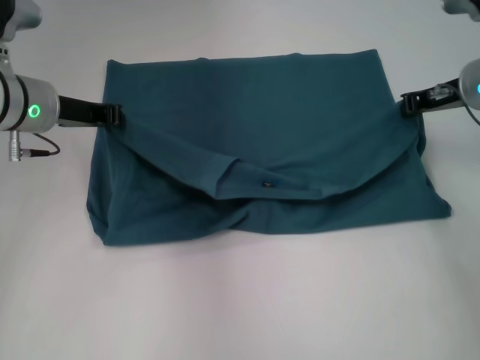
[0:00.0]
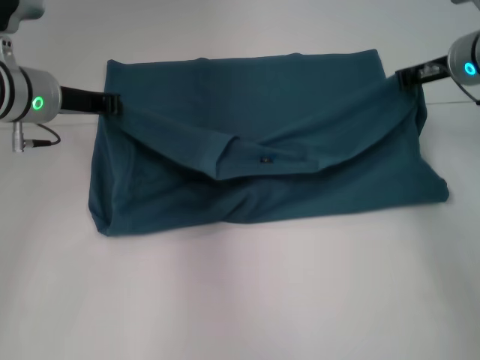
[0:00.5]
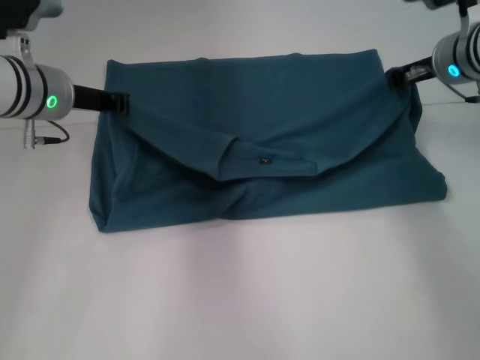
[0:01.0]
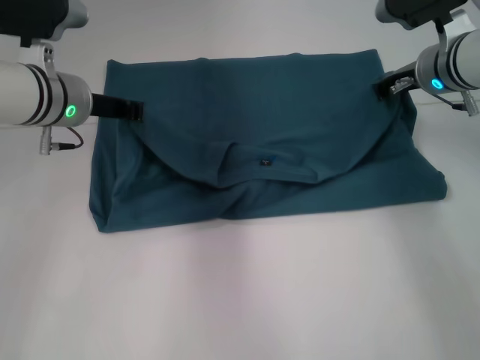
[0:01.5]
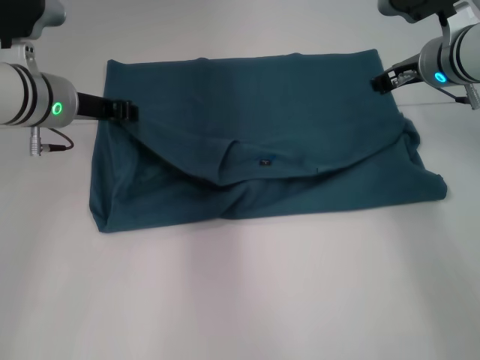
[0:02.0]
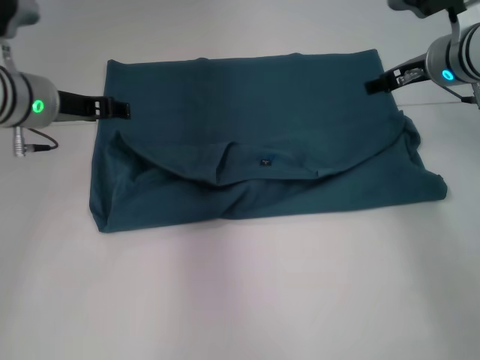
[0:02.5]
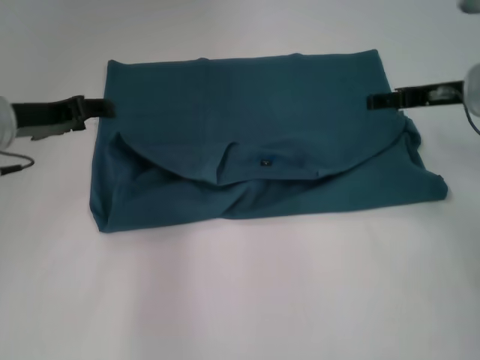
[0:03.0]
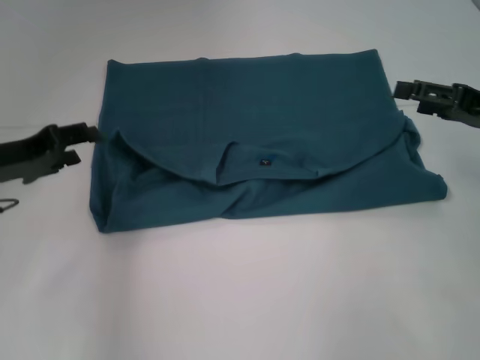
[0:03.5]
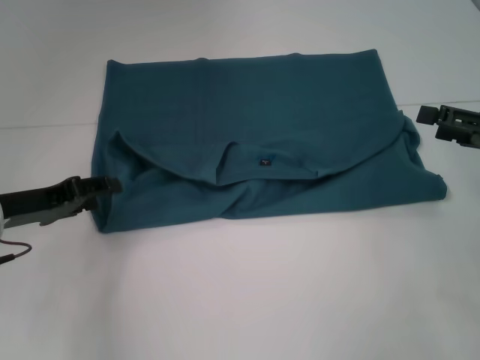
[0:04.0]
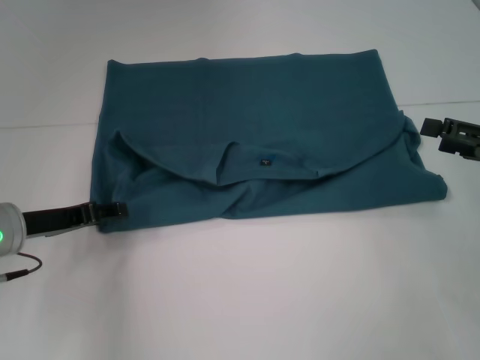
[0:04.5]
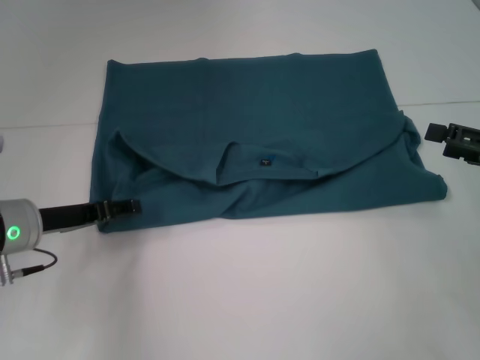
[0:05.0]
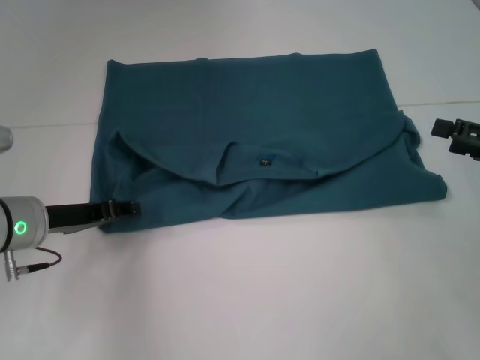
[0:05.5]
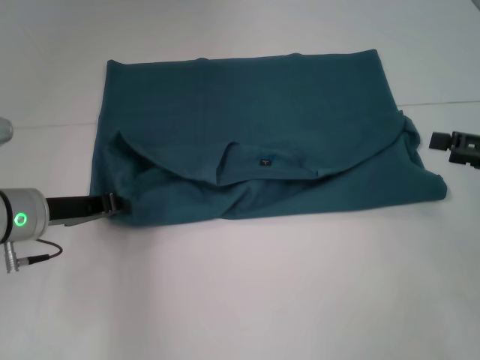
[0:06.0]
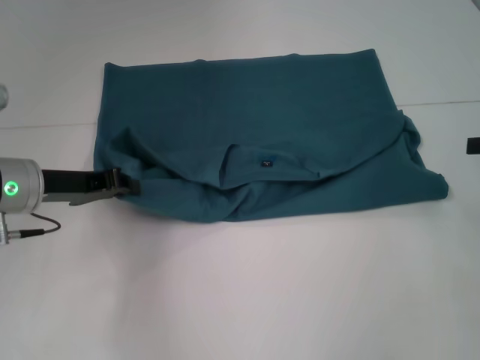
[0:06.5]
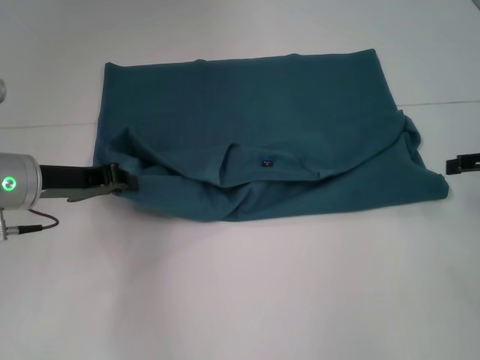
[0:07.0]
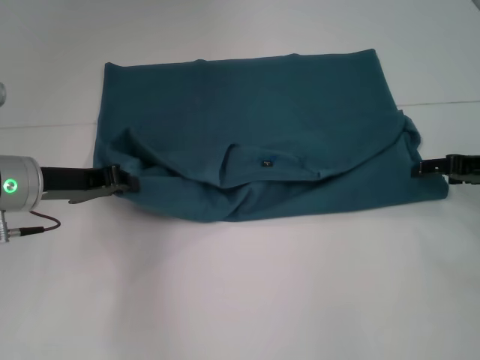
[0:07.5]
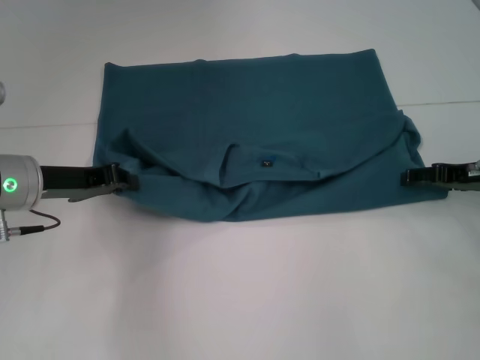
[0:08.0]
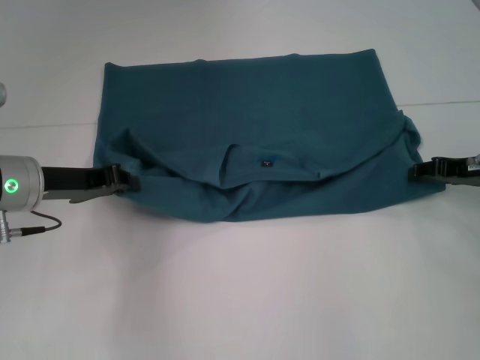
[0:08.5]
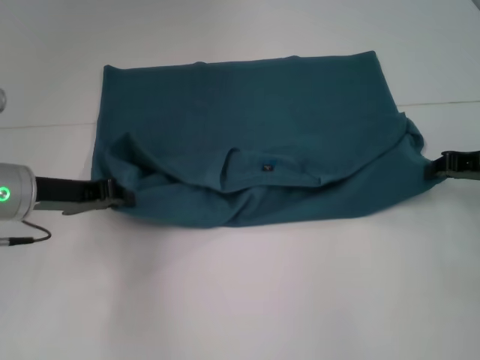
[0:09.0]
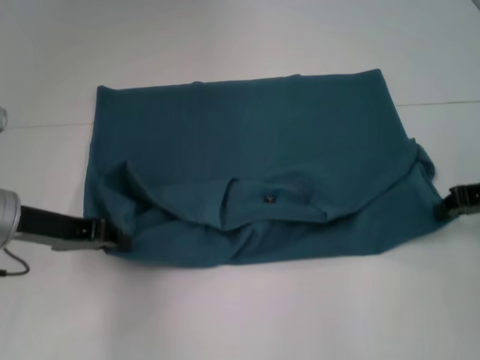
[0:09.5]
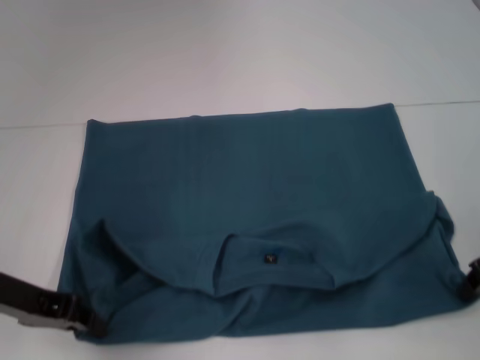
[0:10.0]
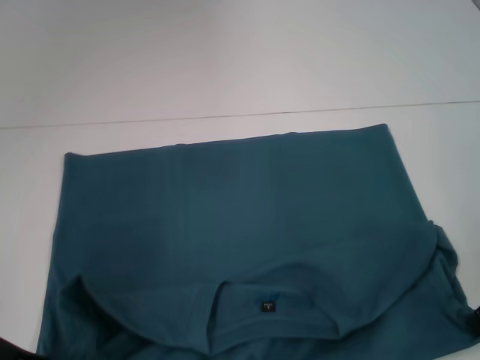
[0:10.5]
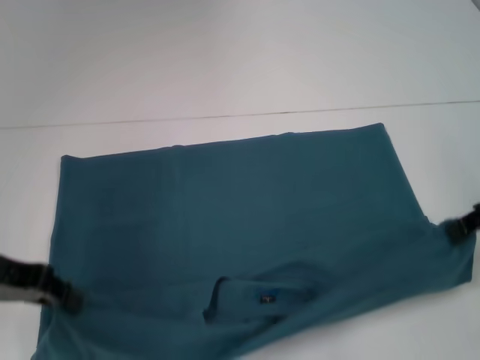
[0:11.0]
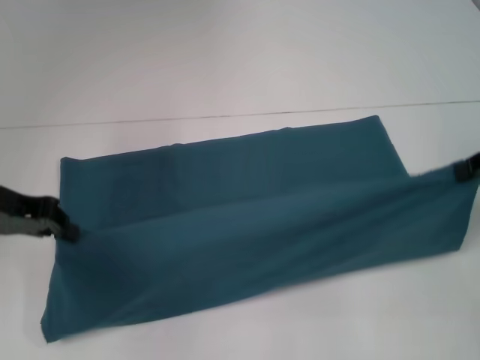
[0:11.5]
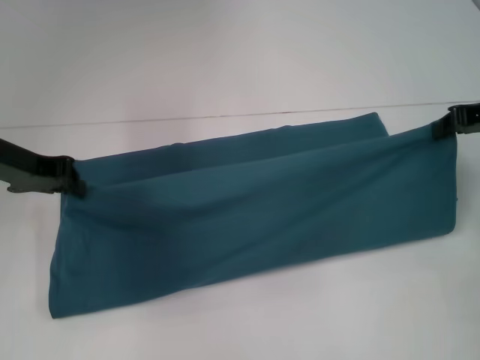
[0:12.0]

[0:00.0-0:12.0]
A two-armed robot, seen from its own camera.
Step, 0:00.0 to 0:02.5: Fold the clothes to the left.
Step, 0:00.0 to 0:02.5: Fold the clothes to the right.
Step, 0:03.0 to 0:10.5: Pull the clothes with your left hand.
Step, 0:03.0 to 0:10.5: Pull the clothes with your right hand.
0:02.0 to 0:04.0: The right gripper shifts about 20 cm backward and to the right, and opens up. The left gripper shifts some 15 cm backward, to the left and downward, and opens.
0:04.0 to 0:06.0: The left gripper closes its fingers.
0:06.0 to 0:08.0: The right gripper is displaced forward by approximately 5 cm.
0:08.0 to 0:10.0: The grippers both shift backward by some 5 cm. The right gripper closes up.
0:10.0 to 0:12.0: Both grippers travel together forward, roughly 10 cm.

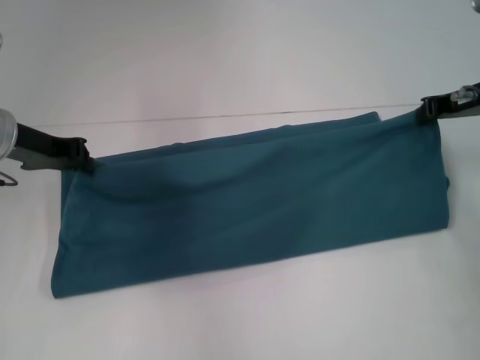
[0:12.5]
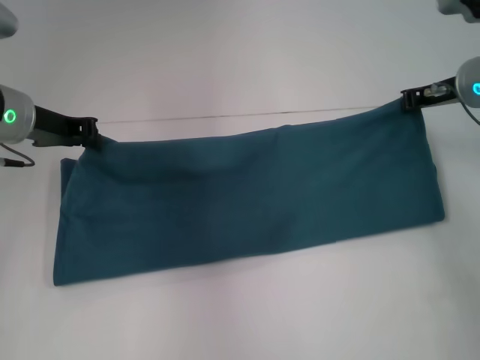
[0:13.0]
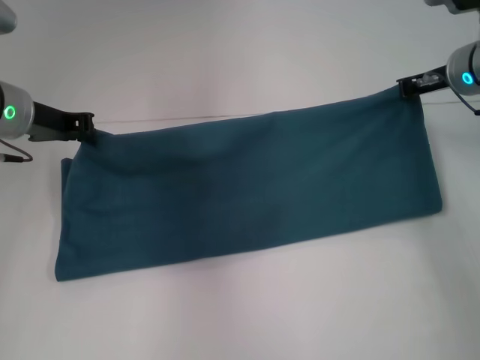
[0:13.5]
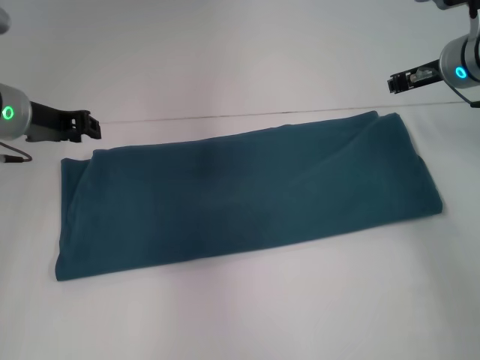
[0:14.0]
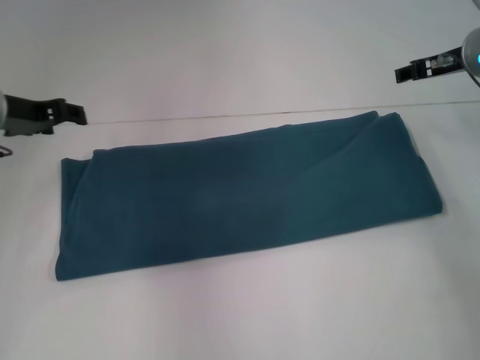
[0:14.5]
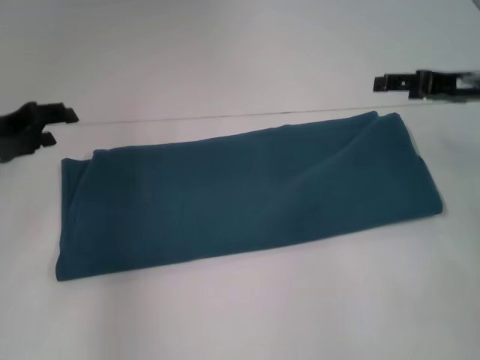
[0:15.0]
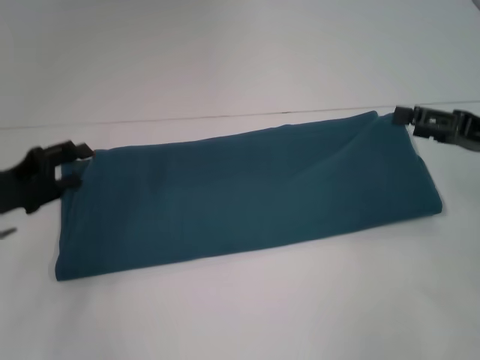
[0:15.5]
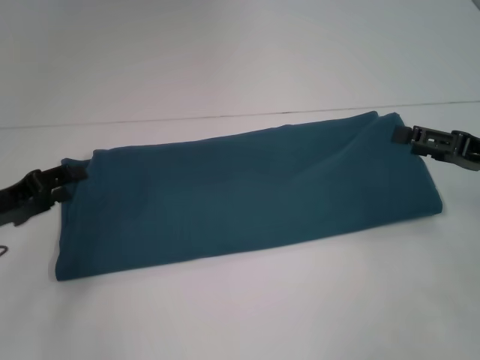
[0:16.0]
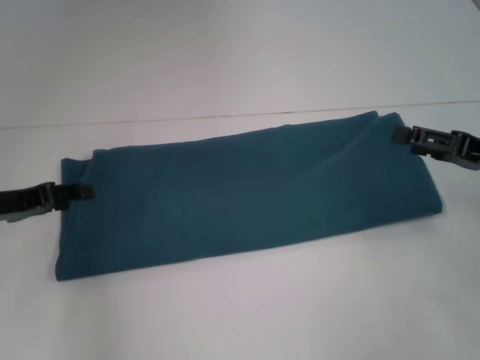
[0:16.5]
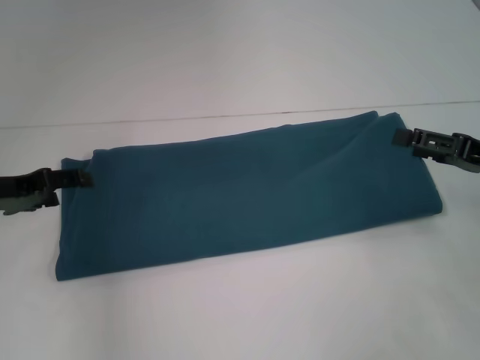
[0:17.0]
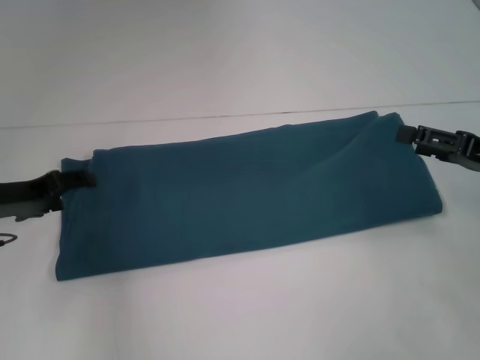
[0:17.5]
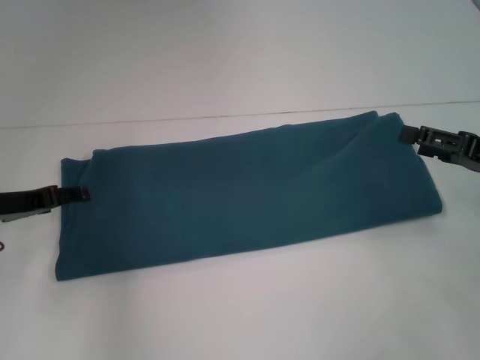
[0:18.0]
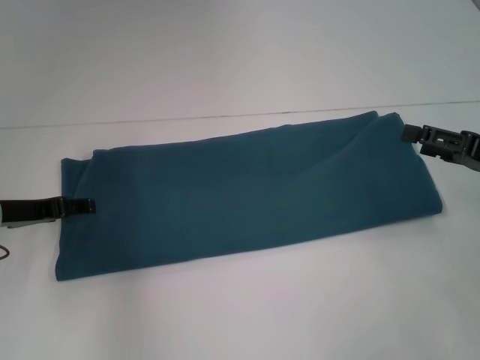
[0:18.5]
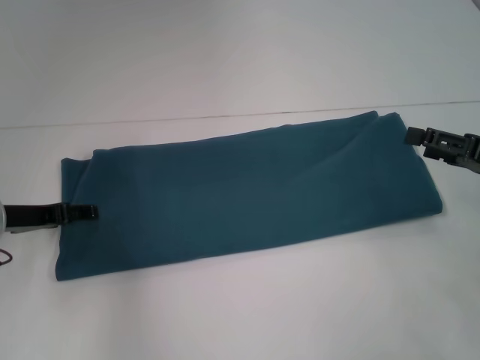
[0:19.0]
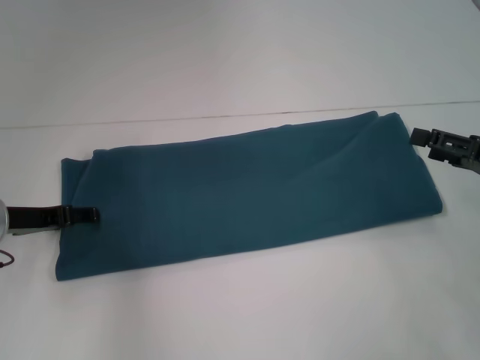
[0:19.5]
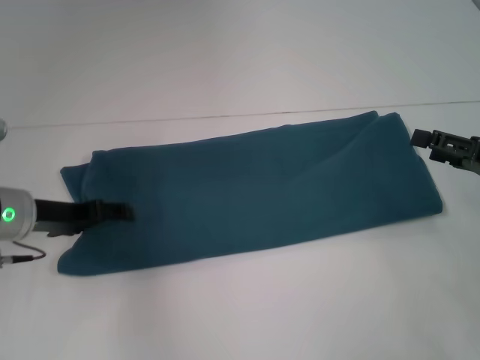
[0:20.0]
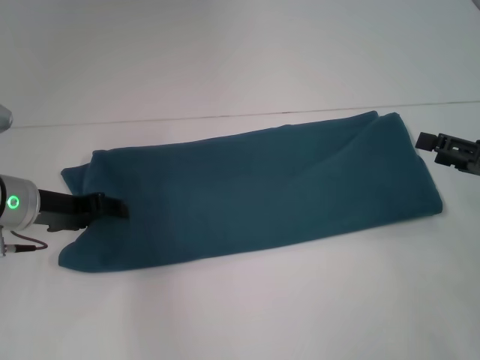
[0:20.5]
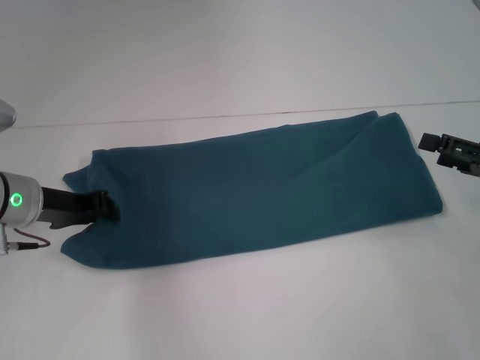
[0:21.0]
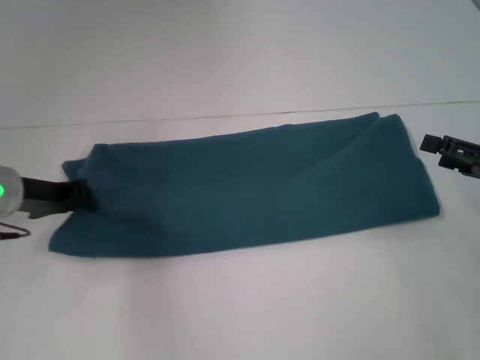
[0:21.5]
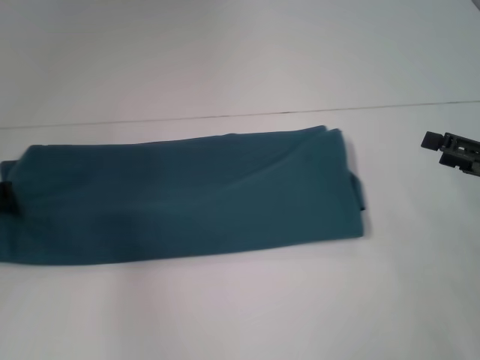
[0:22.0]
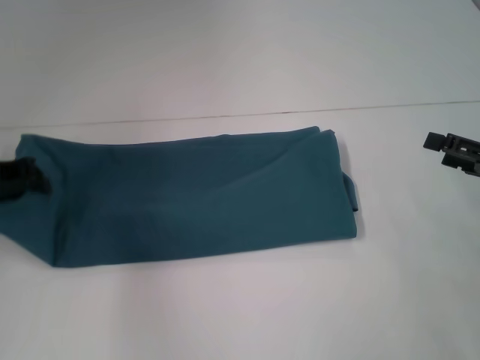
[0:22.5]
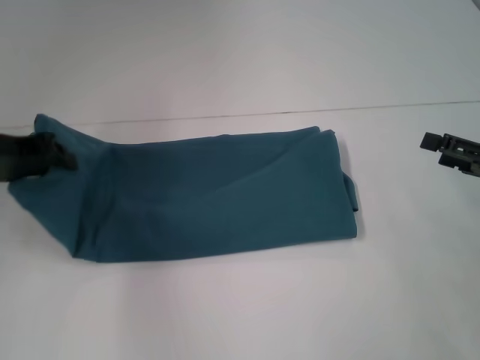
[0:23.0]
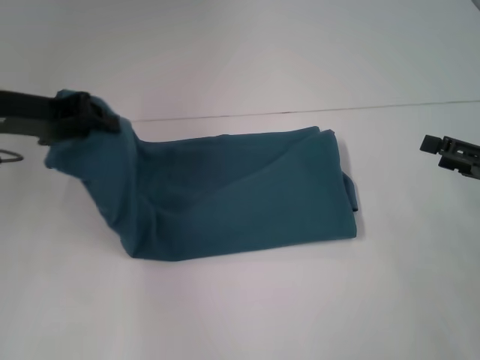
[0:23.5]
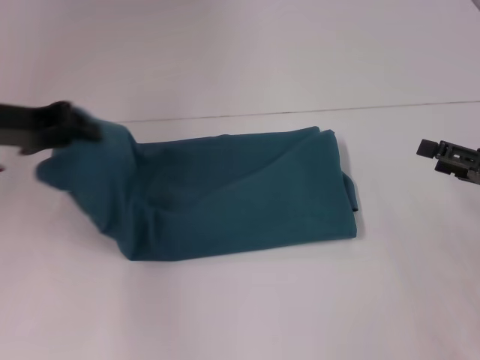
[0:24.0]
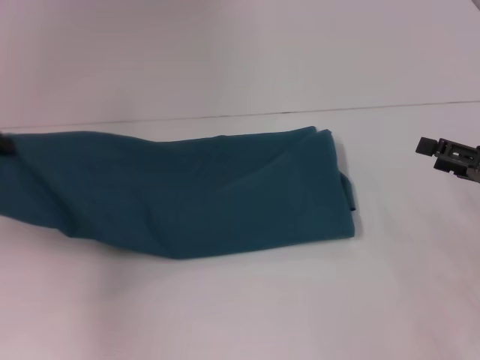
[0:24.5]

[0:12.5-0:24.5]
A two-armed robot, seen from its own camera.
0:12.5 to 0:14.5: The left gripper opens its fingers; the right gripper opens.
0:14.5 to 0:16.5: The left gripper travels backward and downward by some 10 cm, while the right gripper heads backward, downward and to the right, covering approximately 15 cm, and opens up.
0:16.5 to 0:18.5: The grippers stay close to where they were, moving slightly.
0:18.5 to 0:20.5: The grippers move only a little.
0:20.5 to 0:22.5: The left gripper travels upward and to the left by some 10 cm, and closes.
0:22.5 to 0:24.5: The left gripper moves roughly 5 cm.

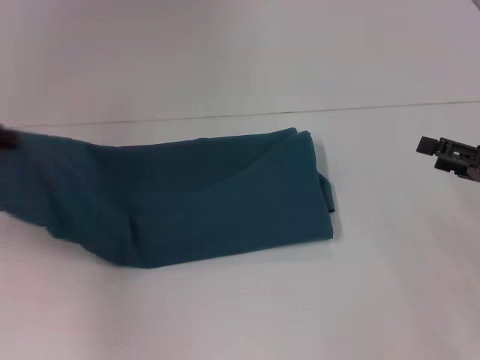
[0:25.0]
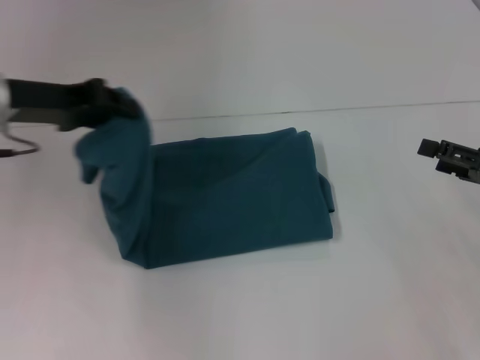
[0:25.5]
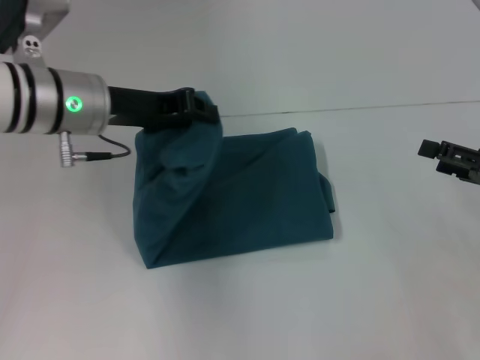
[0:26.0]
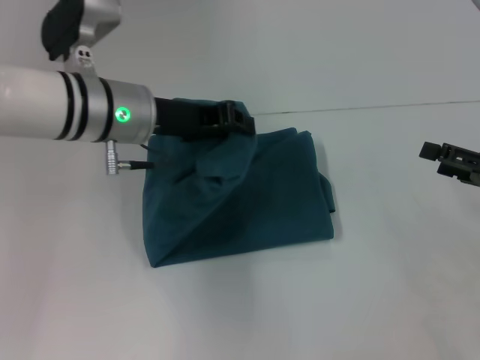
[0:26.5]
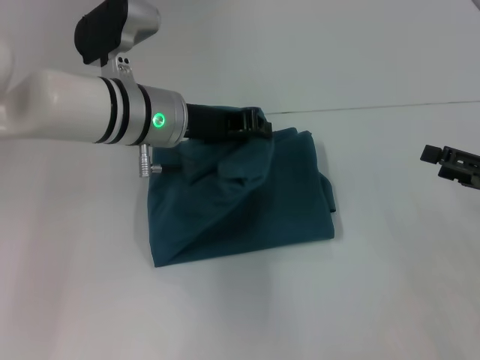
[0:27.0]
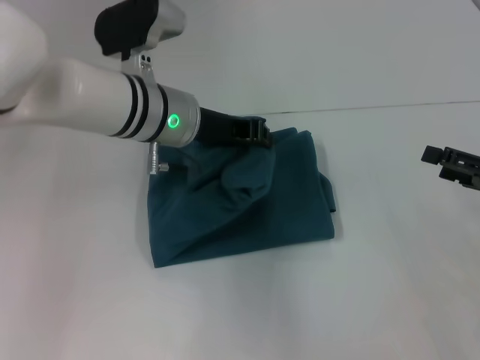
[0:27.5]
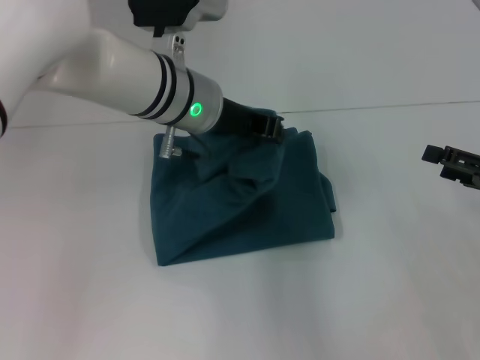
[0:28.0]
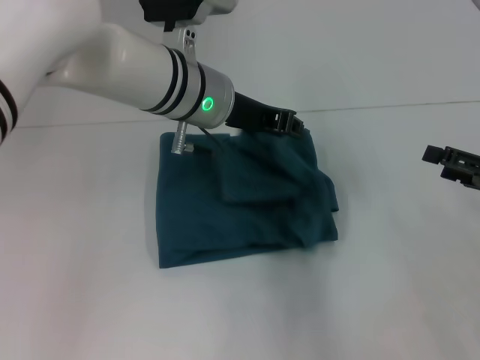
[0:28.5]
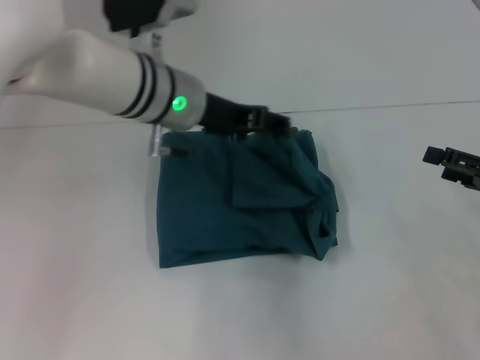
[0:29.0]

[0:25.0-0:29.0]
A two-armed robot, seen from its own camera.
Step, 0:25.0 to 0:28.5: Fold the clothes to the left.
0:25.0 to 0:27.0: The left gripper shifts some 25 cm to the right.
0:27.0 to 0:29.0: The left gripper opens up.
